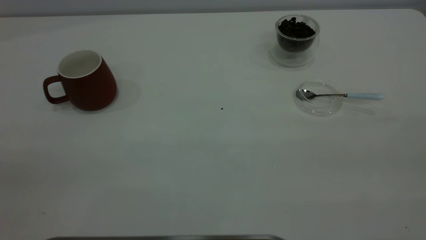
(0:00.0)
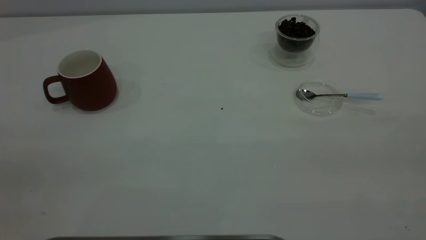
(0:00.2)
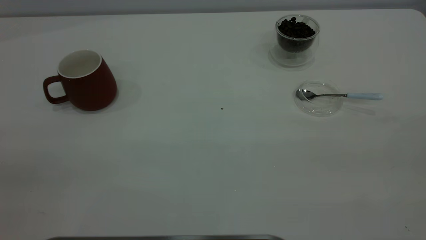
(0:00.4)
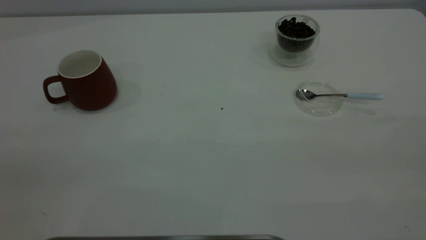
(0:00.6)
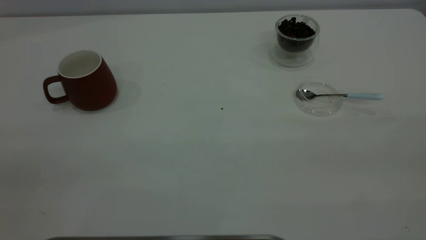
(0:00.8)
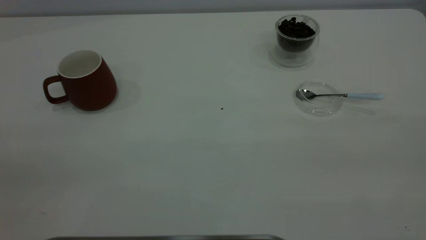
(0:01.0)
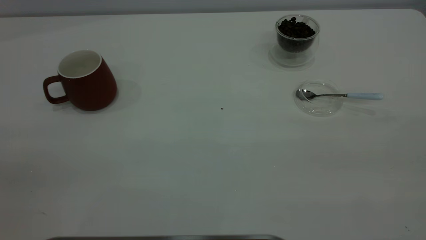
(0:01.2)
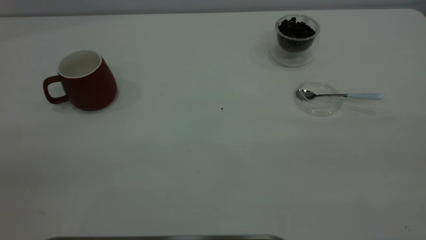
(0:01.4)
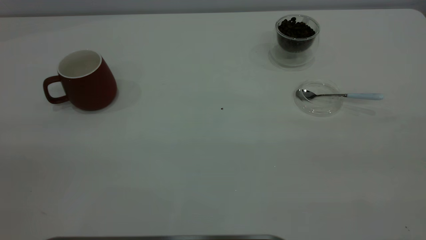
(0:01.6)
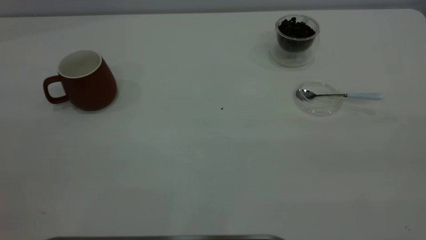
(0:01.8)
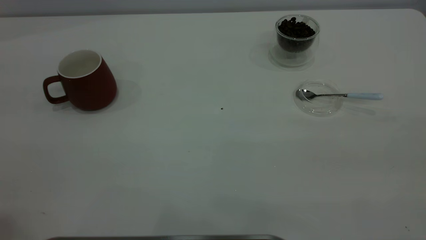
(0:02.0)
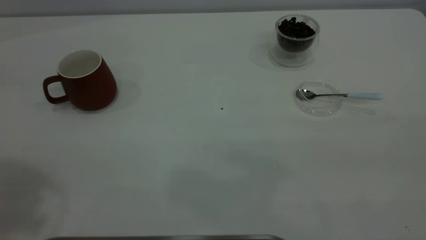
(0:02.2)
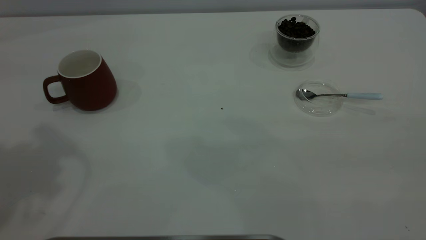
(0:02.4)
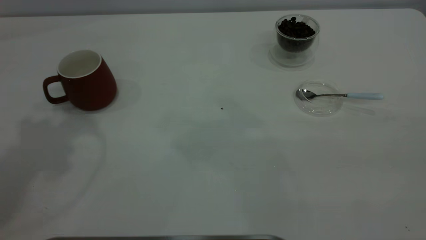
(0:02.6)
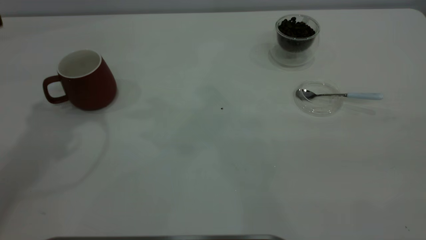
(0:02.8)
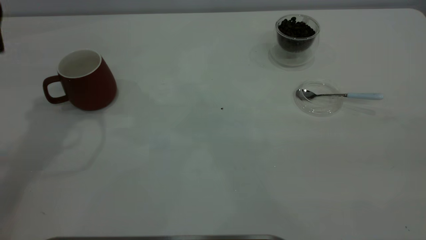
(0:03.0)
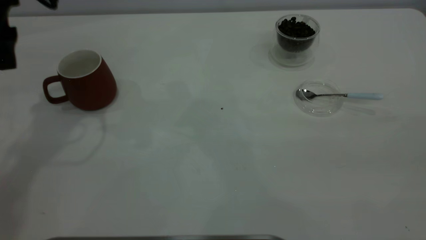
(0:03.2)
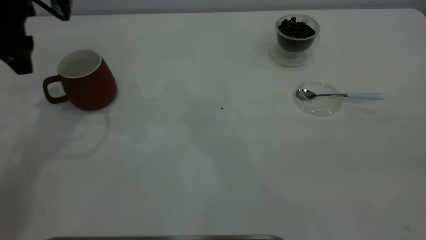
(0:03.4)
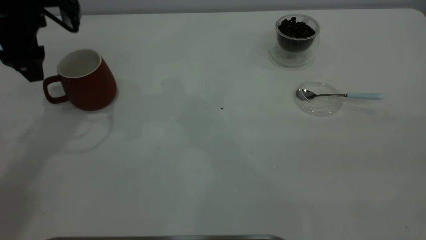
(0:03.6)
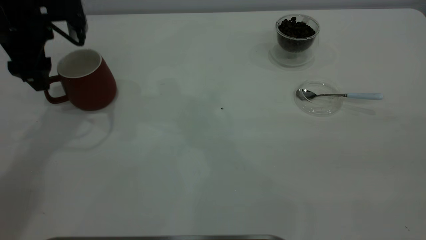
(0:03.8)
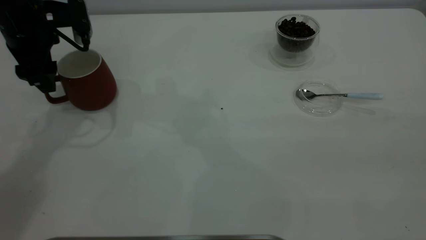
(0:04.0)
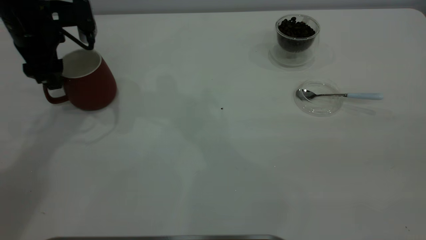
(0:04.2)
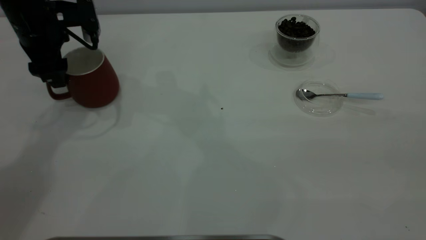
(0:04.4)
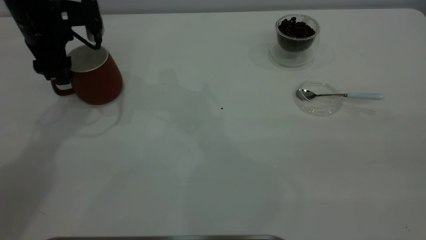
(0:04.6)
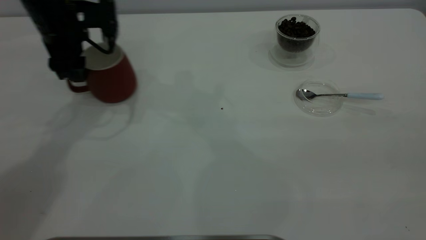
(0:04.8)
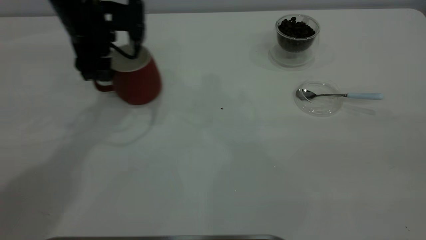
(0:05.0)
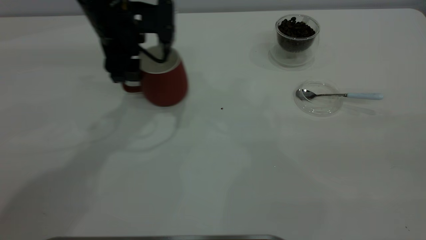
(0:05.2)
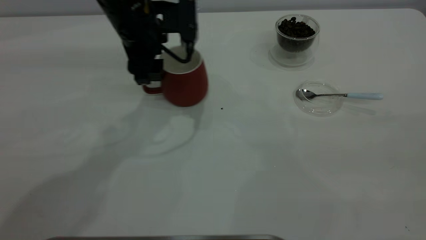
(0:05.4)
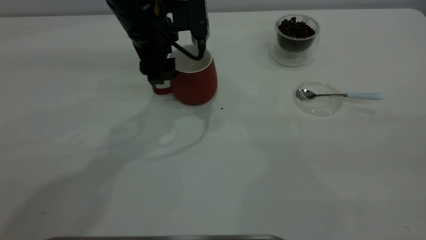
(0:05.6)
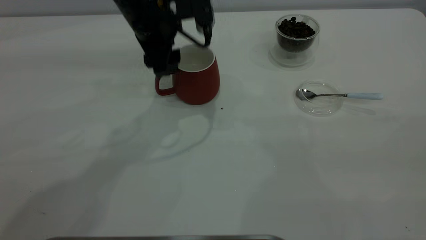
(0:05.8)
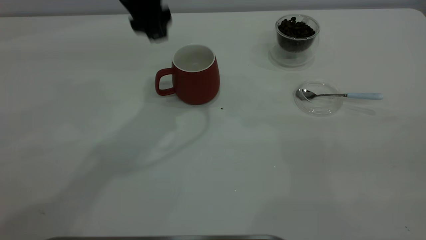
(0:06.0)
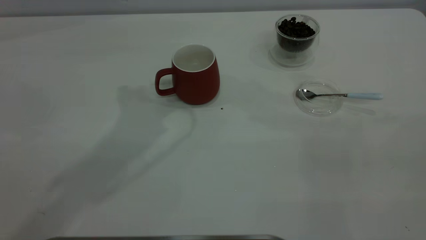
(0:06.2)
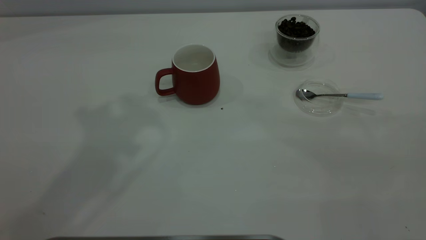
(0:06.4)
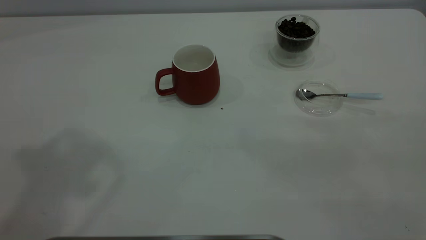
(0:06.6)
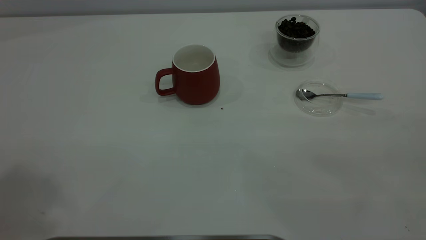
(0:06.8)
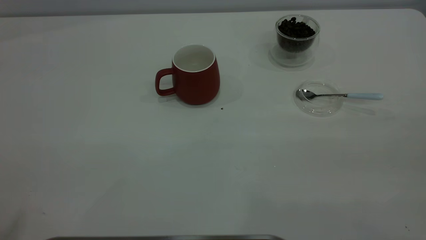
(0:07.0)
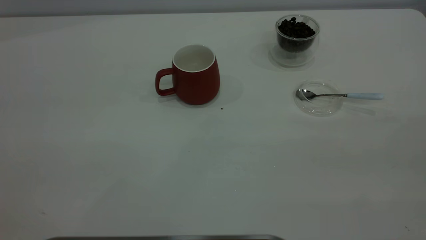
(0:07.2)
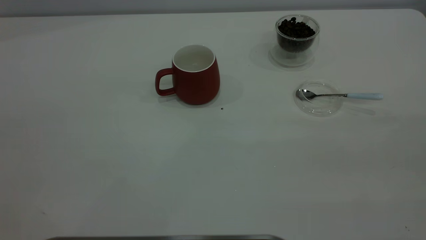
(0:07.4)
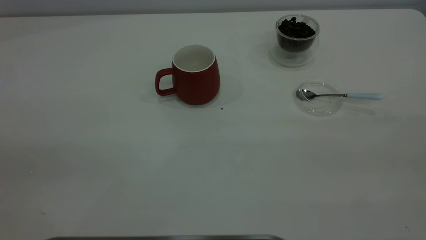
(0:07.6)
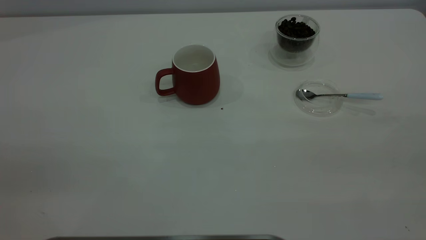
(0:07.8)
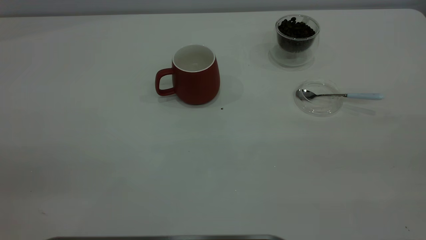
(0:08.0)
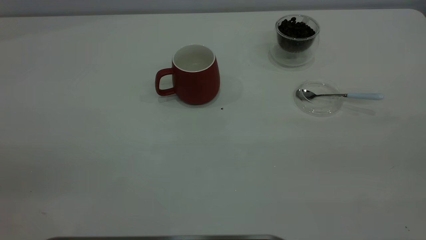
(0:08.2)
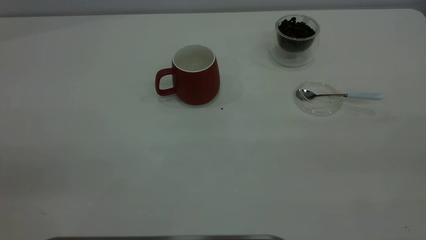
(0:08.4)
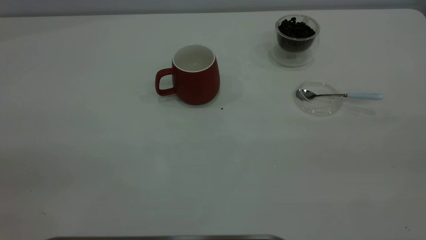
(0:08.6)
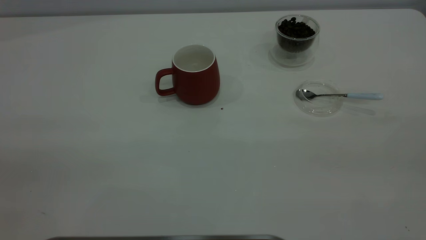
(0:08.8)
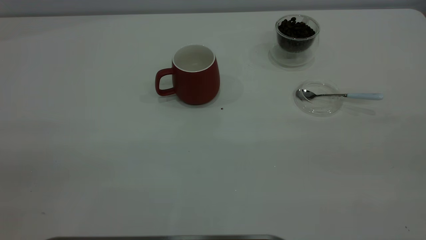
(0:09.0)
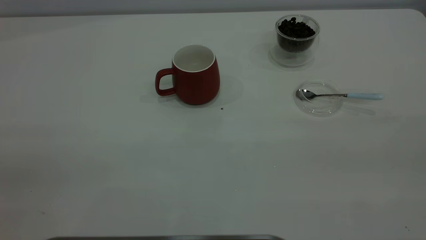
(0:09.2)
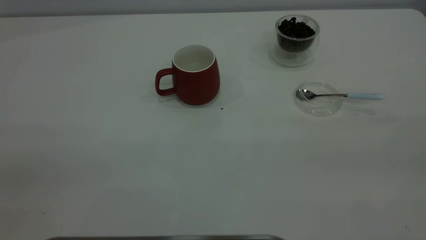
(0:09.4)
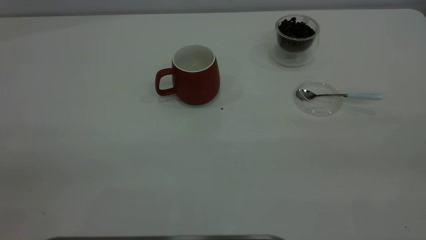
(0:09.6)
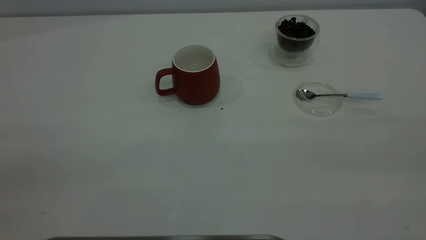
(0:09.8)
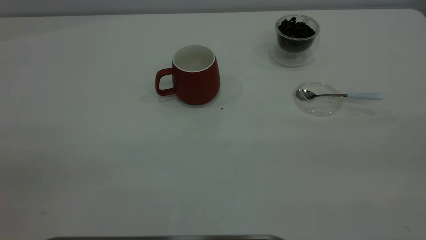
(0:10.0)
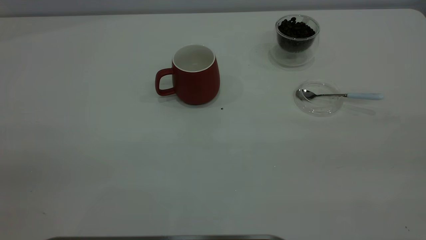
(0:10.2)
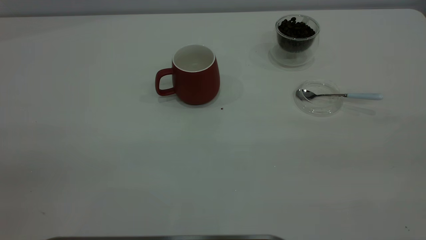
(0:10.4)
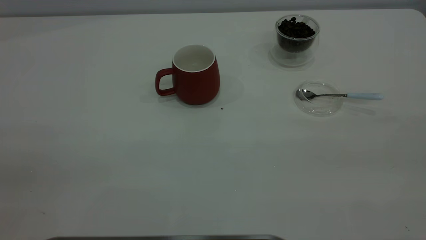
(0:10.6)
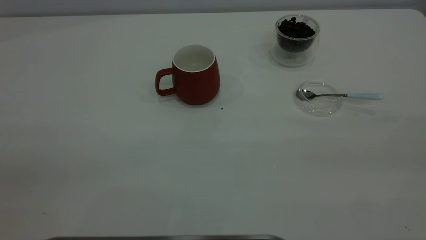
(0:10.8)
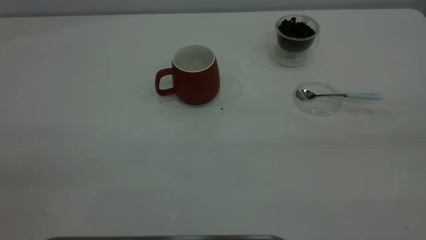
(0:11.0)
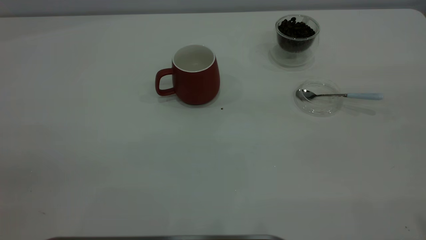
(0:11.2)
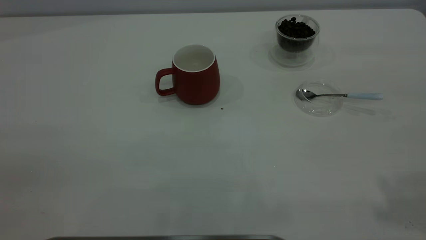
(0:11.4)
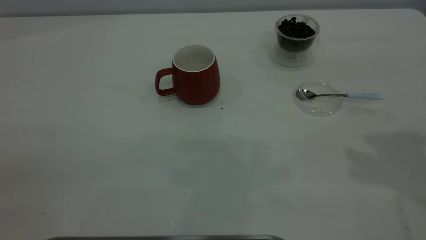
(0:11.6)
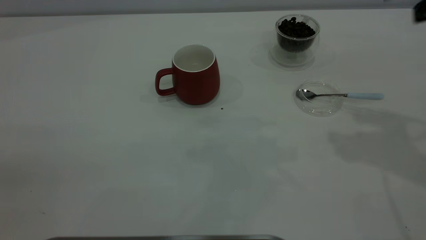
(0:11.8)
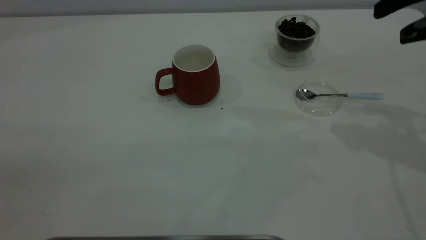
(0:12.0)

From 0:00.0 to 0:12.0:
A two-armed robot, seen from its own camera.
Task of the whole recording: the left gripper place the red cup in the center of the table, the right gripper take the blue spoon from the cup lid and scoop out the coffee beans from the coffee cup and put them into the red cup, the right gripper put the spoon back into the cup lid.
Step, from 0:00.0 to 0:05.8: Move the cup to the center of view.
From 0:03.0 to 0:04.4: The left gripper is displaced downward and forward by approximately 15 cm.
From 0:04.4 to 0:06.0: The left gripper goes approximately 20 cm to the right and upward.
From 0:06.0 to 0:07.6: The left gripper heads backward and to the left, covering roughly 40 cm.
From 0:09.0 to 0:10.4: Both grippers stay put.
From 0:10.4 to 0:12.0: The right gripper is displaced forward by some 30 cm.

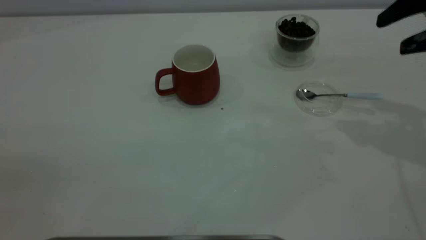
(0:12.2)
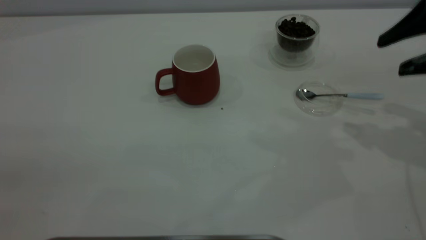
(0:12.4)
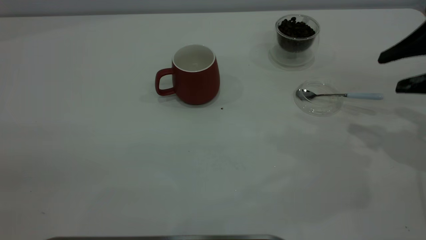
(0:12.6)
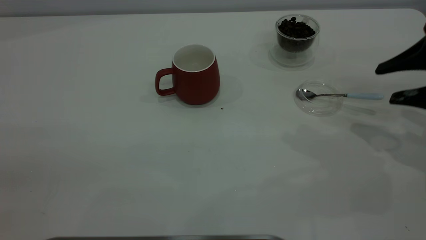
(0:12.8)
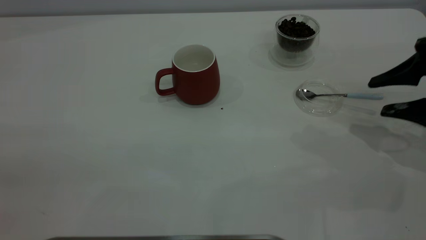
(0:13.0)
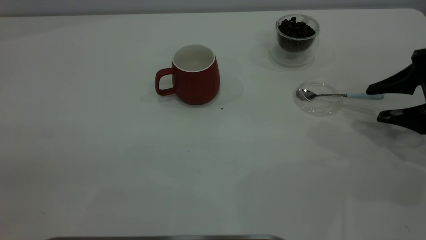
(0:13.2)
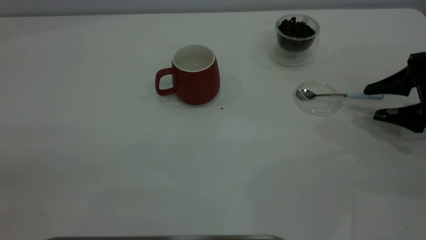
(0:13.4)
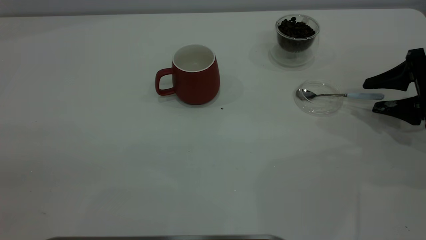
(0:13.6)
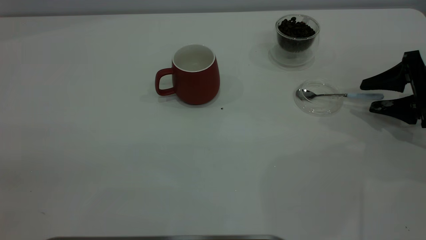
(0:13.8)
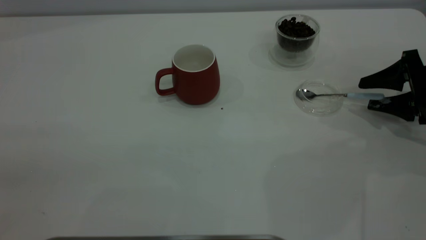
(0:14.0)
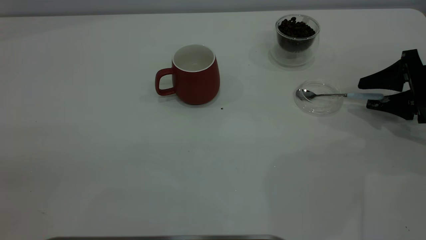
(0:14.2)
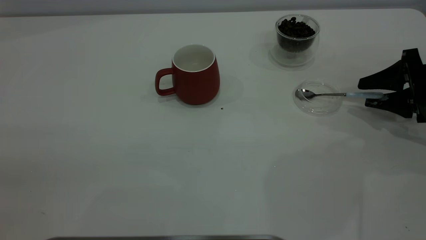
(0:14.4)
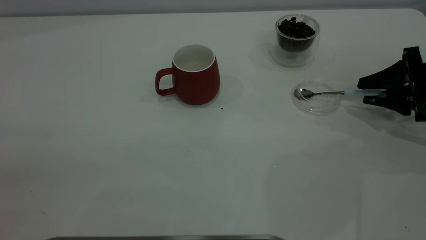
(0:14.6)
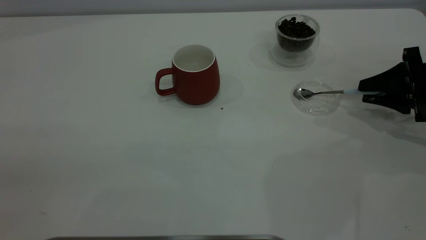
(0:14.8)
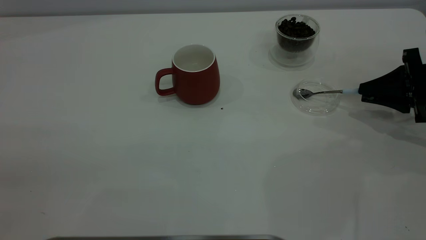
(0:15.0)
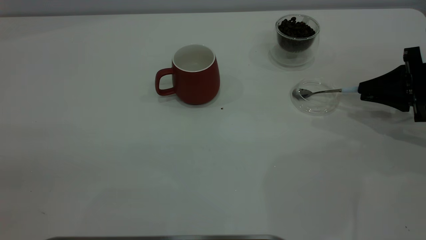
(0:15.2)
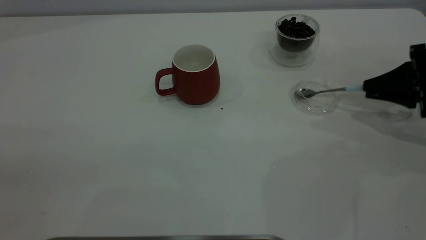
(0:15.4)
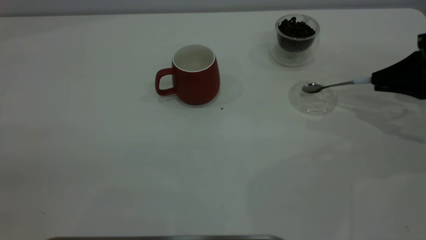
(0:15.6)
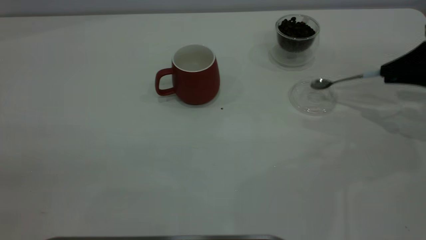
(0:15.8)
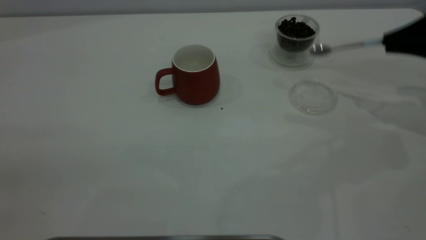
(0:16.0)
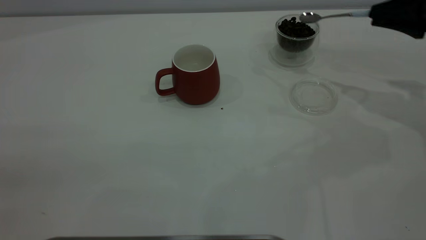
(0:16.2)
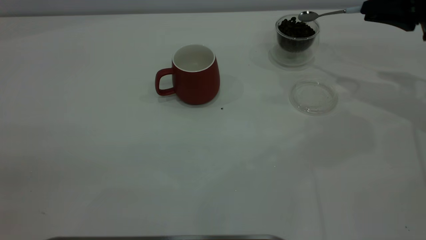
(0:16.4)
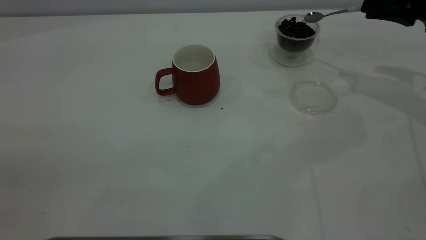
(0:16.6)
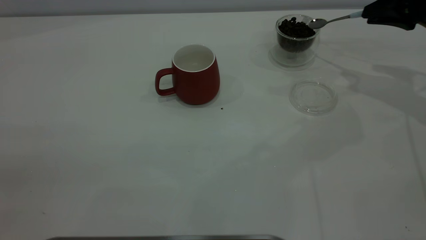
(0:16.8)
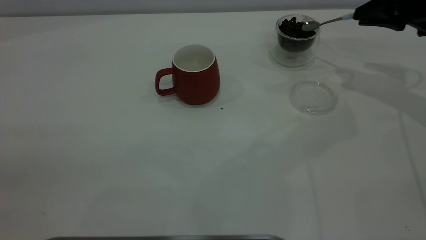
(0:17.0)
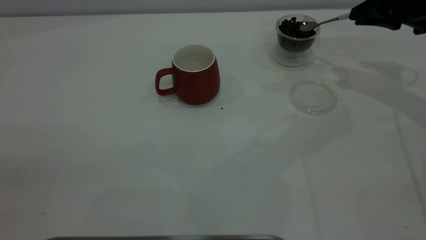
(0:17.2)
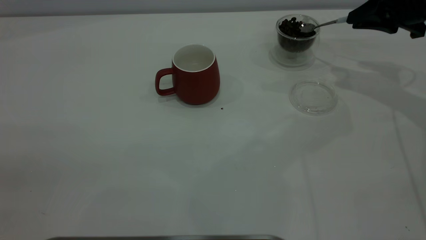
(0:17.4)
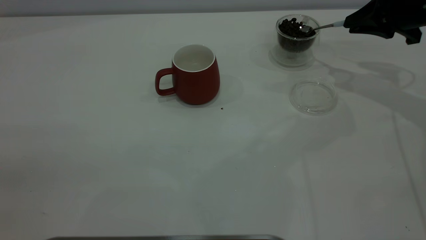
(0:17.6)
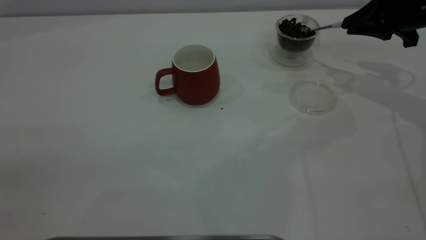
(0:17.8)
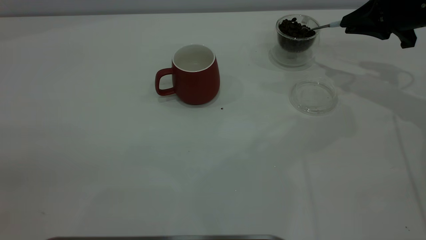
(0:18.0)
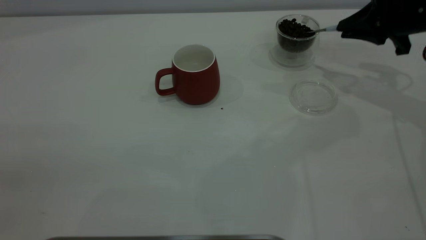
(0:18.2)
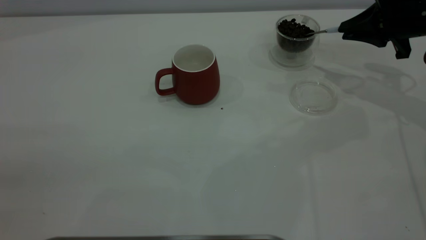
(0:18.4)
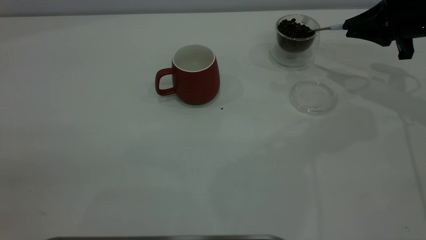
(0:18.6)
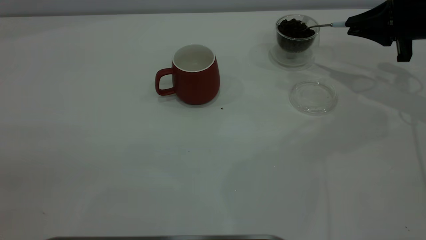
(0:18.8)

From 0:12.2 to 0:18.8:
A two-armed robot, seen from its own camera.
Task of the whole recording: the left gripper place the red cup in the center of the table, the right gripper take the blue spoon from the cup lid and scoop out the coffee beans from the coffee cup and put them into the red cup, the right gripper put the spoon back into the cup lid.
Step, from 0:12.2 to 0:15.8: Pick up the spoon.
From 0:12.2 to 0:13.8: The right gripper goes approximately 20 cm downward.
From 0:13.8 to 0:15.4: The right gripper closes.
From 0:15.4 to 0:17.2: The right gripper goes roughly 10 cm upward and forward.
